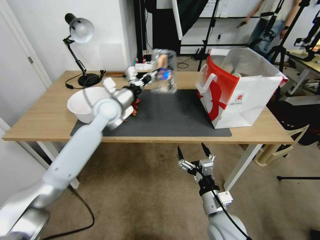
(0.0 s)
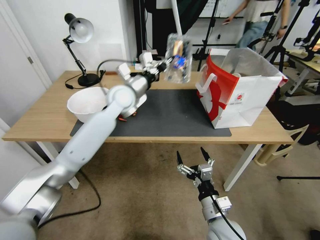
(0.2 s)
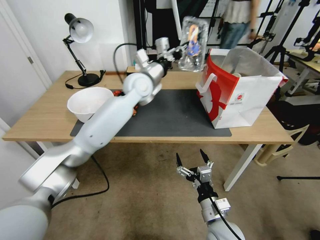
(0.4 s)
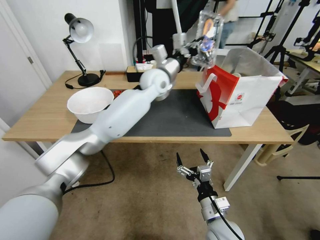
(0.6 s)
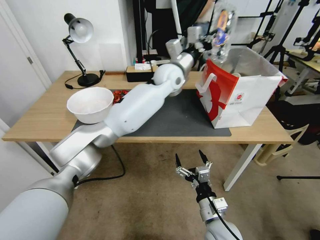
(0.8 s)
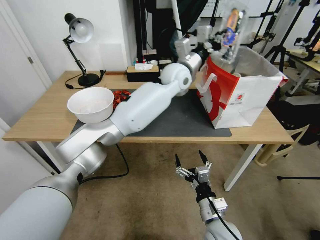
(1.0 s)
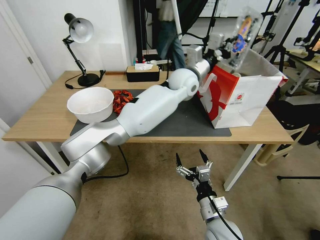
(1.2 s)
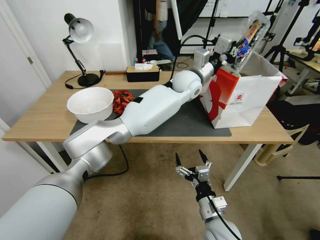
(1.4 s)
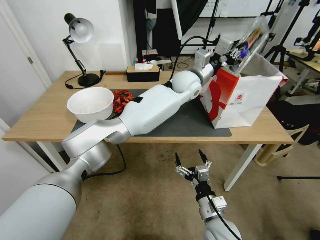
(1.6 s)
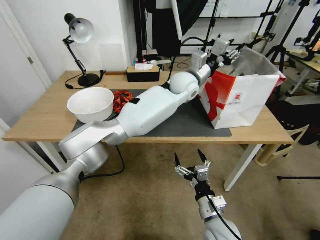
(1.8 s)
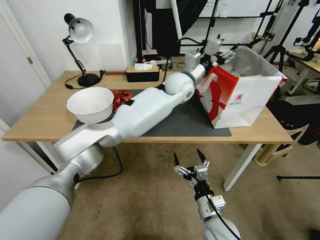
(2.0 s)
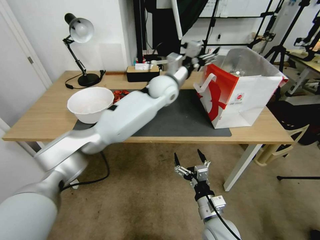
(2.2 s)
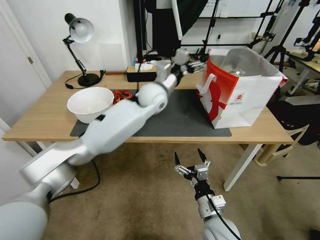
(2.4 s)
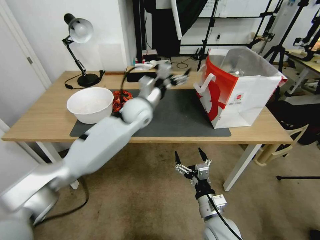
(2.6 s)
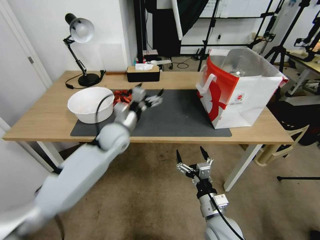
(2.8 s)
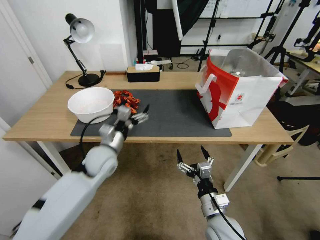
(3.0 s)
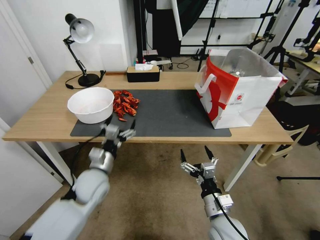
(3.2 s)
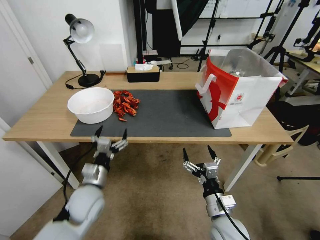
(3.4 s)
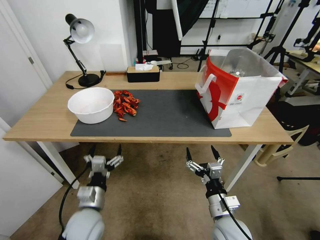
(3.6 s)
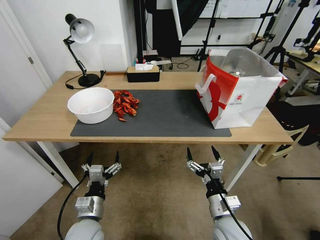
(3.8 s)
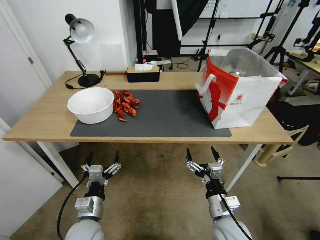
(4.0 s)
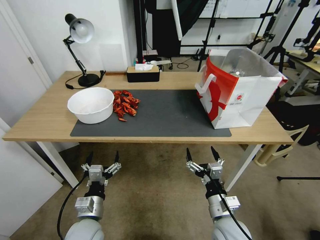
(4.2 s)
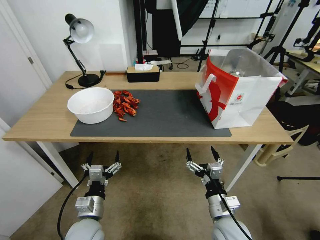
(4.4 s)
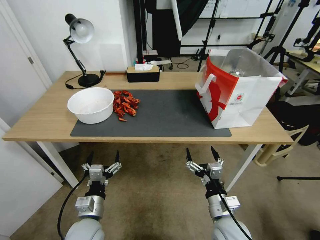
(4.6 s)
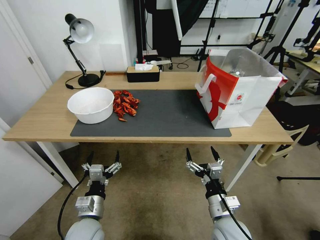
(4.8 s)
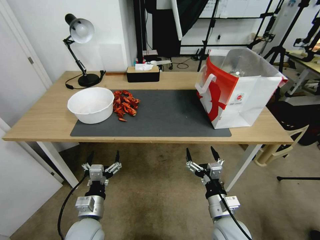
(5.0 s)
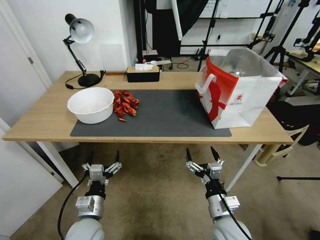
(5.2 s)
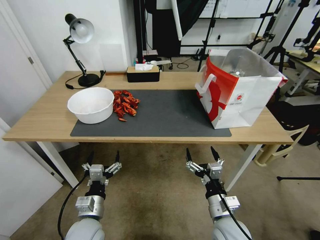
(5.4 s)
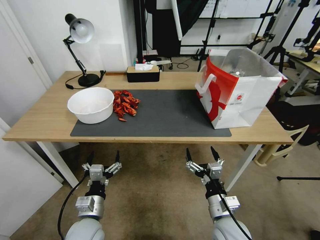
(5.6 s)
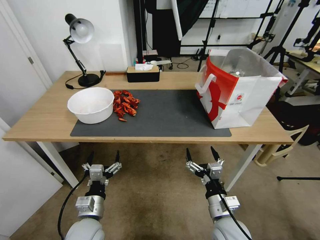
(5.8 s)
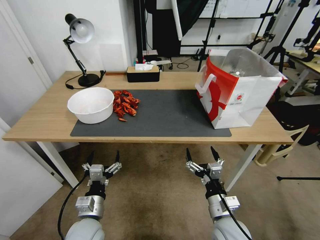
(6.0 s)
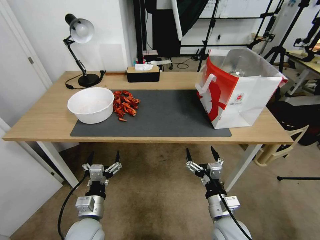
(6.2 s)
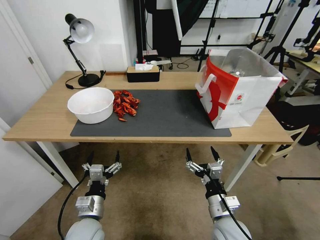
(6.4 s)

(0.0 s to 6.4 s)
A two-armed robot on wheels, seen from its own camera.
Task of the whole recording: Close the takeout container lid, then place the container into the takeout bag.
0.0 s - 1.6 s: The left gripper heads to the right, covering about 25 cm.
1.6 s - 3.2 s: The left gripper goes about 40 cm to the left, backward and downward, and opens its fingers.
3.2 s - 4.8 s: The left gripper goes approximately 15 cm backward and downward.
4.8 s - 6.4 s: Both grippers stay put.

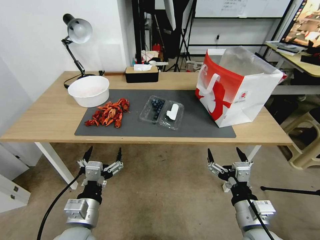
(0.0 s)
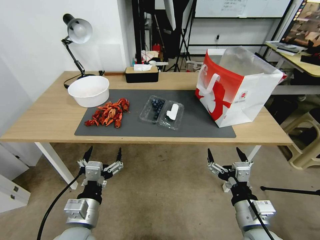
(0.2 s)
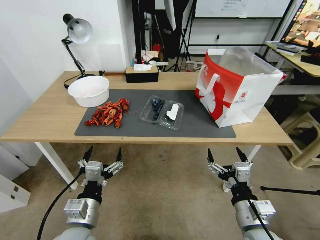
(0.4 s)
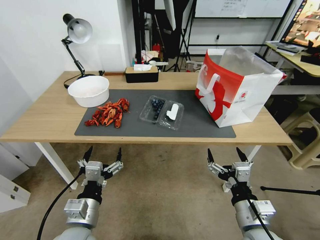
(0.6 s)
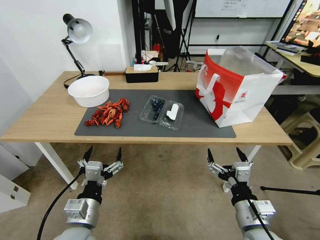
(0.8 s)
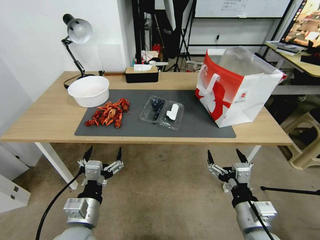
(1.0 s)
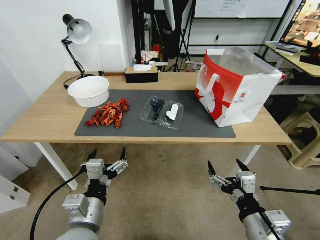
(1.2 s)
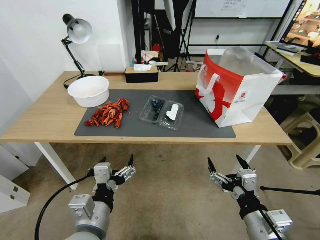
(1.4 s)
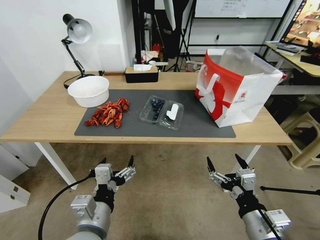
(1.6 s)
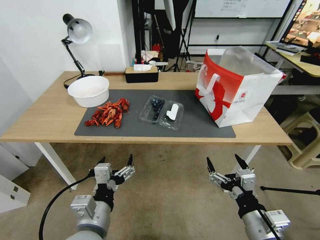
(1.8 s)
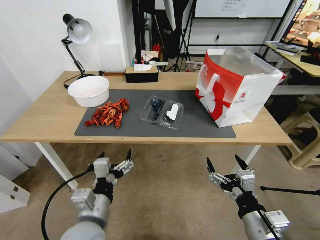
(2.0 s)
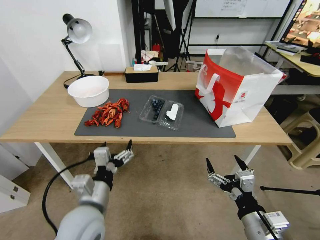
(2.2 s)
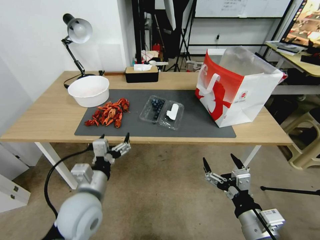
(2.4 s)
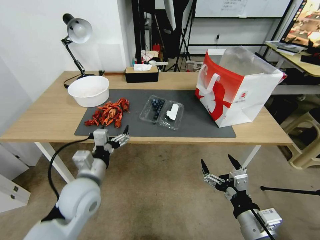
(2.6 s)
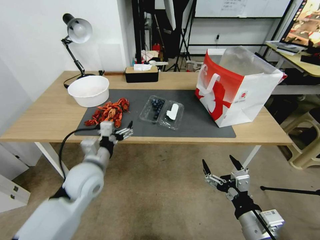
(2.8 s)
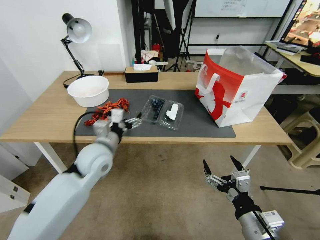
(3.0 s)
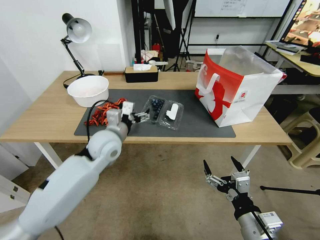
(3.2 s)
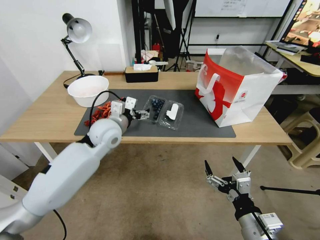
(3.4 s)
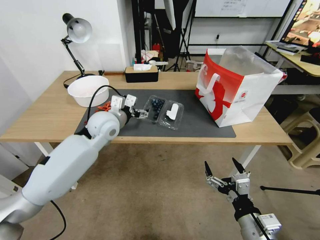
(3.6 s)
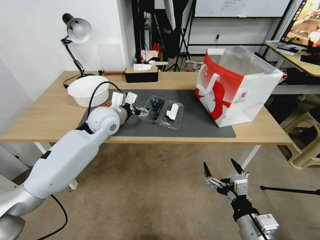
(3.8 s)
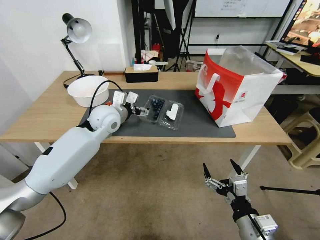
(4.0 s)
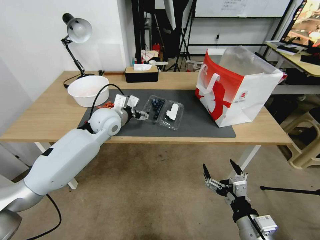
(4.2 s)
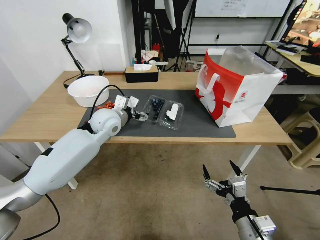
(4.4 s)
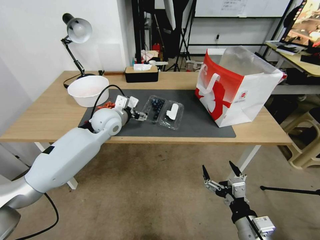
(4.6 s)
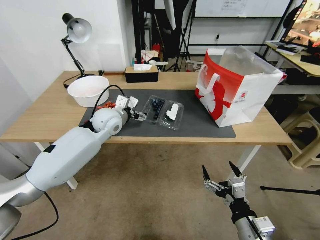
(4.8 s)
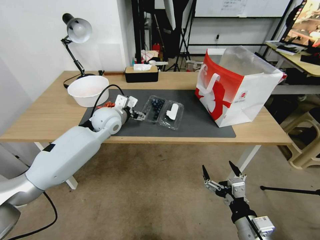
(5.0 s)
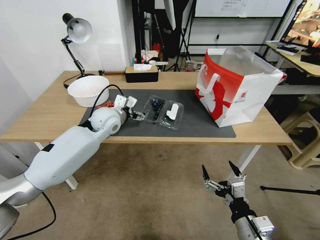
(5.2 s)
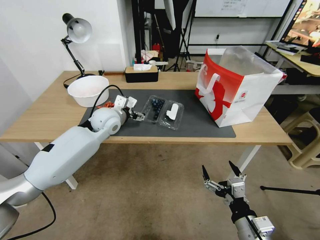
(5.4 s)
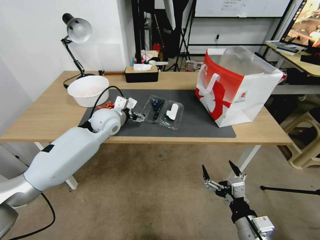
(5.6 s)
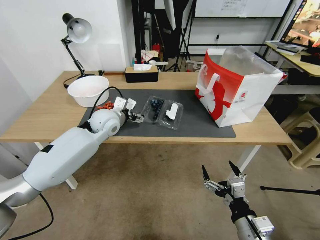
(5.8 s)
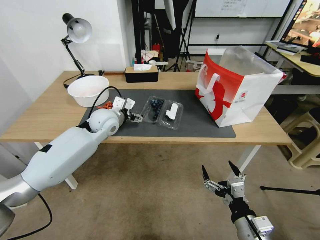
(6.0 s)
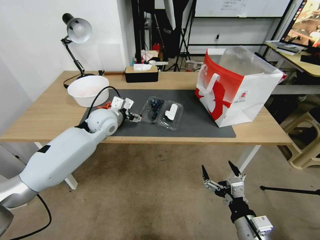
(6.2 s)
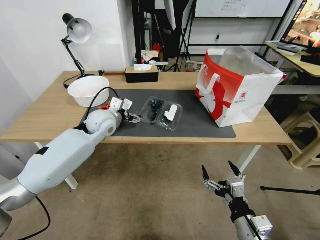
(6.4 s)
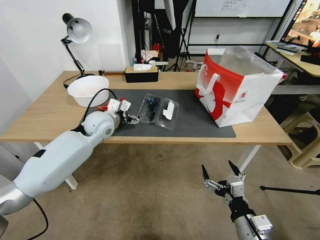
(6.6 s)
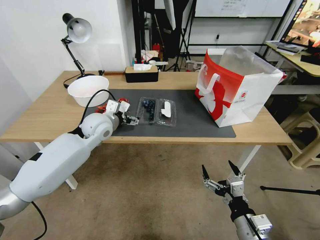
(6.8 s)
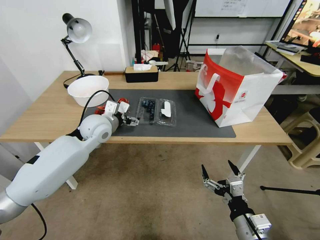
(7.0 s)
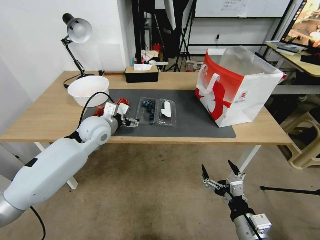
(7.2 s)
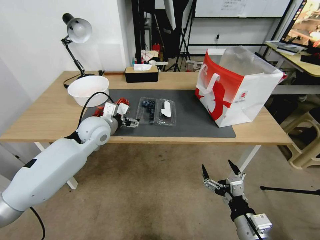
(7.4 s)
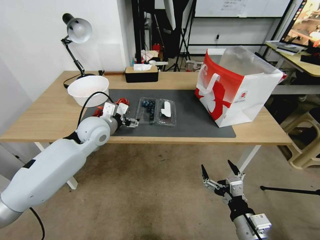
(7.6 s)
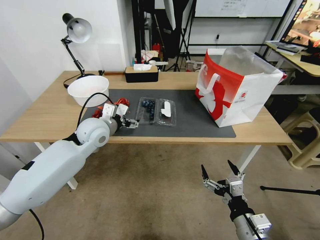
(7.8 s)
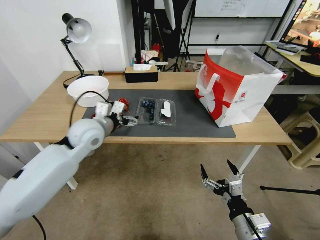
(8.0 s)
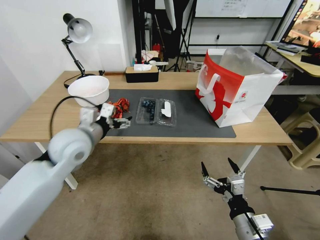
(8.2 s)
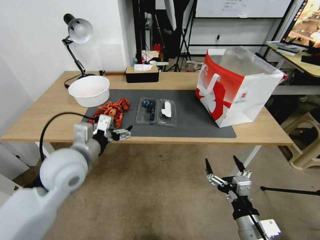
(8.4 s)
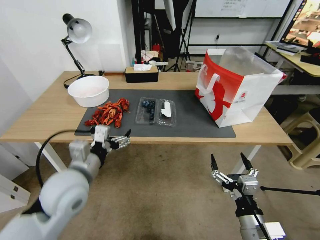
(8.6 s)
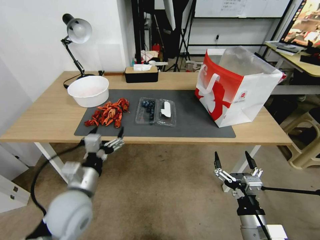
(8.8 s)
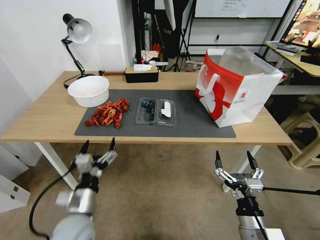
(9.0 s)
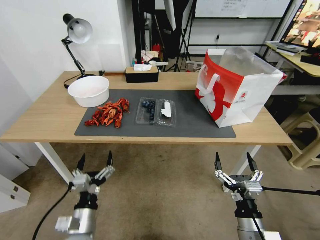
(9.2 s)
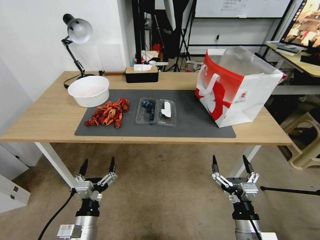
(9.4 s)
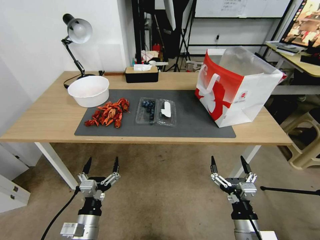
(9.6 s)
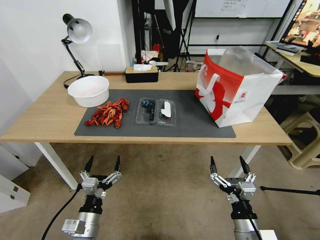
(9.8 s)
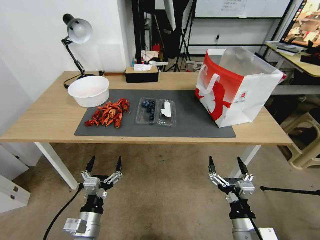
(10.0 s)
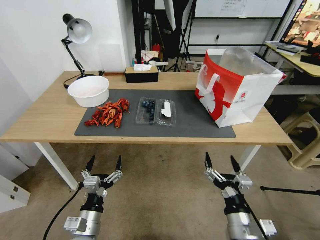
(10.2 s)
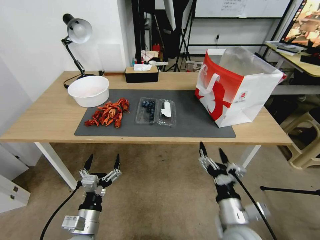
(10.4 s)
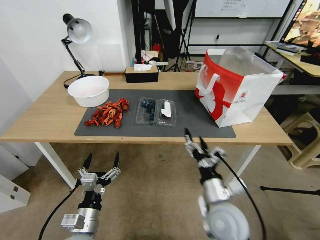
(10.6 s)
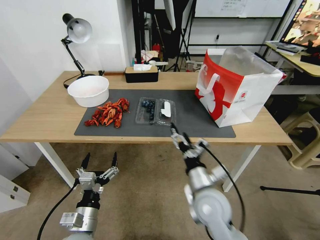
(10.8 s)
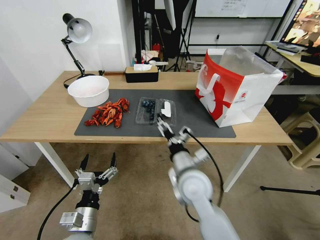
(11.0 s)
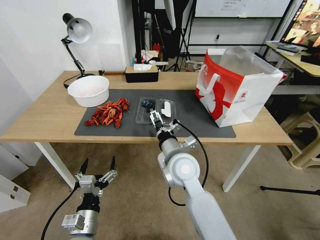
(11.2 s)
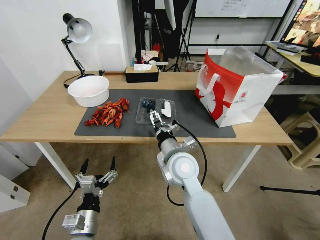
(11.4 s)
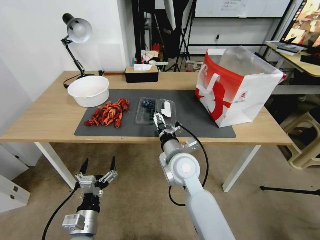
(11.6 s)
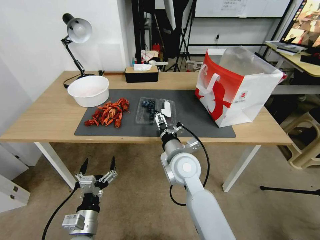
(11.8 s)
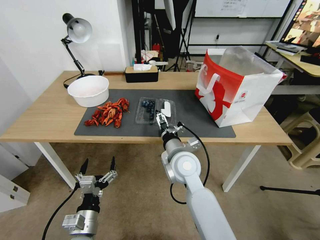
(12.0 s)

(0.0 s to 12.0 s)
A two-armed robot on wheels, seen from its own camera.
Task of the whole recording: Close the takeout container lid, then place the container into the takeout bag.
1.6 s - 3.0 s: The left gripper travels forward by roughly 20 cm.
3.0 s - 4.4 s: The left gripper travels forward by some 10 cm.
4.4 s - 6.0 s: The grippers move only a little.
6.0 s - 7.6 s: The left gripper moves approximately 5 cm.
7.6 s - 9.0 s: The left gripper travels backward by roughly 20 cm.
9.0 s - 10.4 s: The right gripper changes place by approximately 5 cm. The left gripper moves downward and backward, roughly 15 cm.
10.4 s - 12.0 s: The right gripper goes about 20 cm forward and to the left.

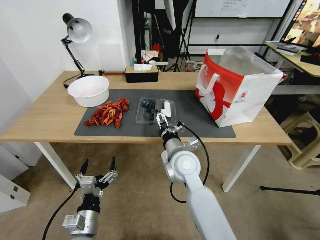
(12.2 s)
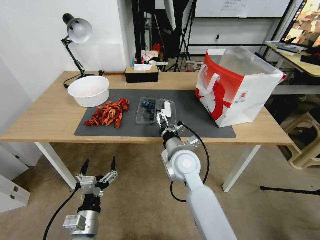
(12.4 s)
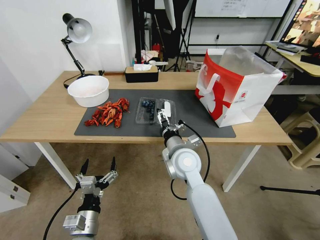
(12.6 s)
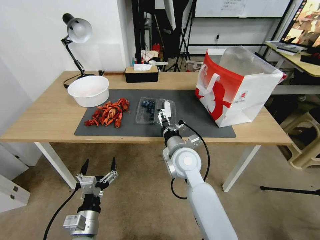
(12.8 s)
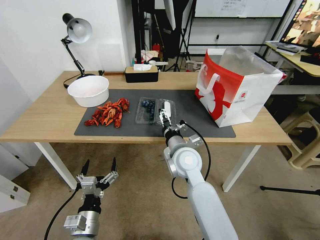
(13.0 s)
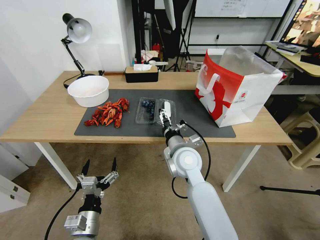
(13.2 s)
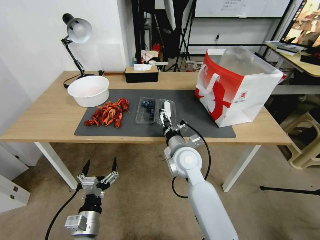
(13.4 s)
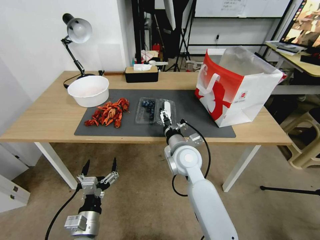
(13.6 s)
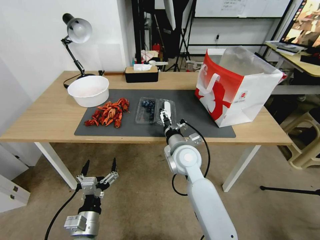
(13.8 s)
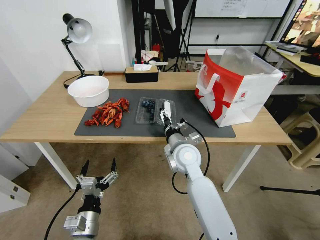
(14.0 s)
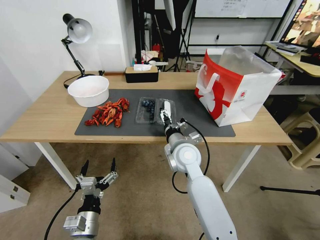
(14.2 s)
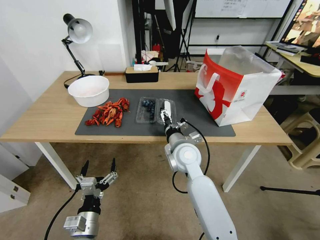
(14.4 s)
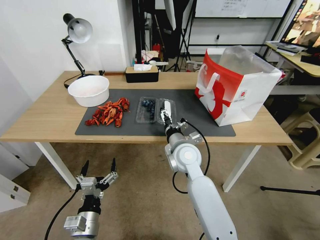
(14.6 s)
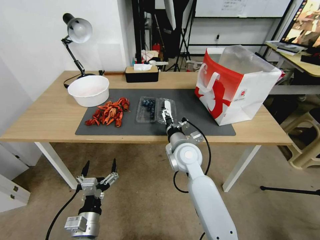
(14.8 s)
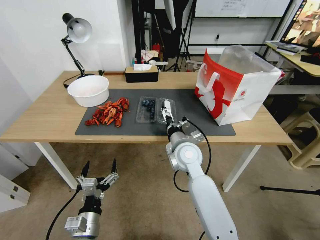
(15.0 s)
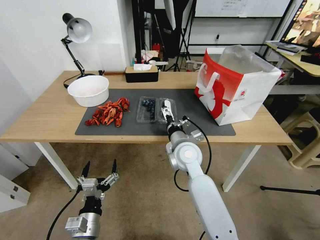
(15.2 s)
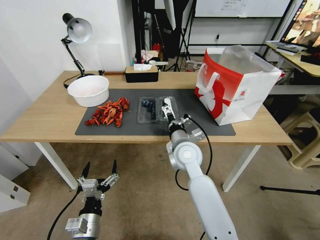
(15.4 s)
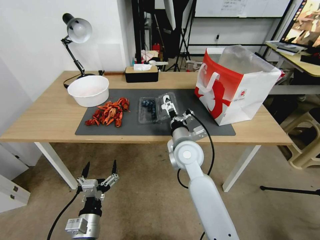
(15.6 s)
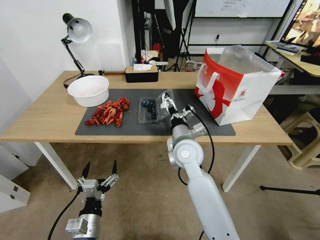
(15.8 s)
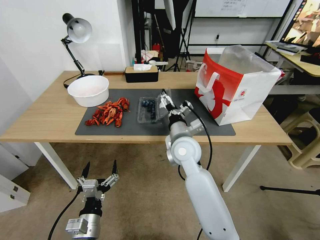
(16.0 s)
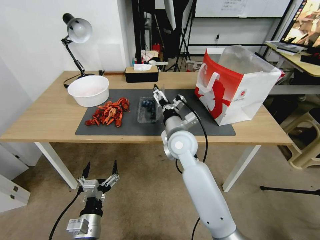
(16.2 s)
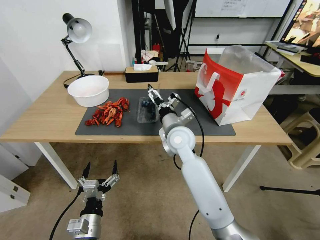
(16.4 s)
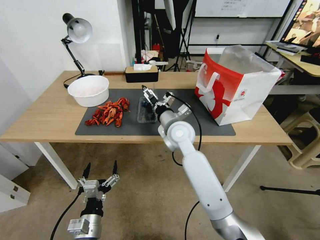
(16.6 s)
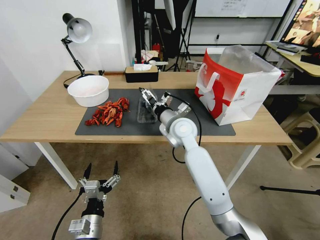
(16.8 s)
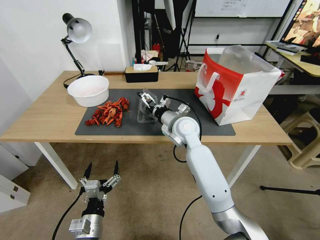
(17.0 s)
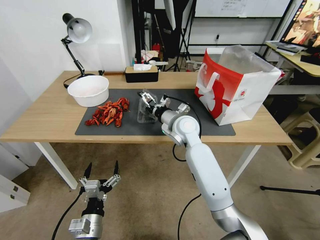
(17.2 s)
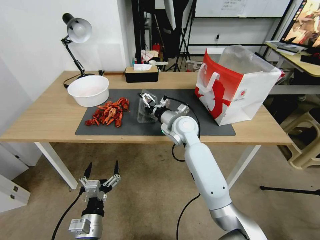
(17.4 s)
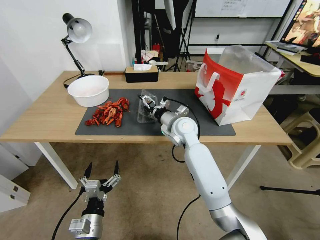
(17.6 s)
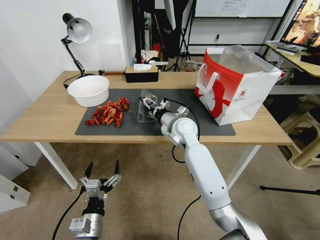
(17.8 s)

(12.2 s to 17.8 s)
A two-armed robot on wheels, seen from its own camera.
Task of the whole recording: Close the takeout container lid, then place the container into the takeout bag.
12.2 s - 13.6 s: The grippers make only small movements.
13.6 s - 15.0 s: Both grippers stay about where they are.
15.0 s - 16.4 s: The right gripper shifts by approximately 5 cm.
16.4 s - 17.8 s: The right gripper is displaced forward by some 5 cm, and closes its fingers.
